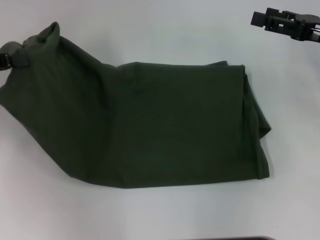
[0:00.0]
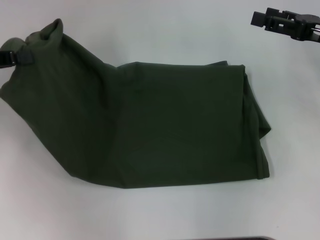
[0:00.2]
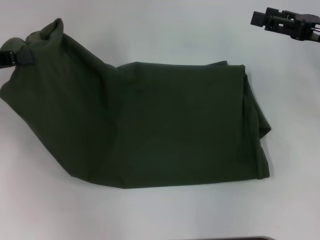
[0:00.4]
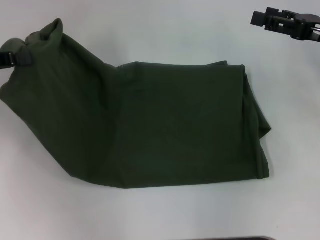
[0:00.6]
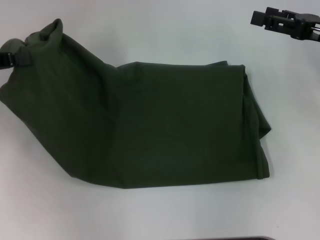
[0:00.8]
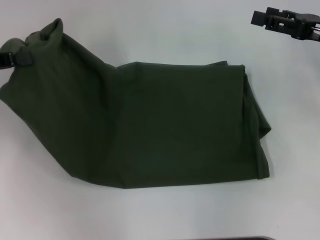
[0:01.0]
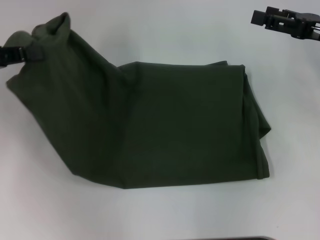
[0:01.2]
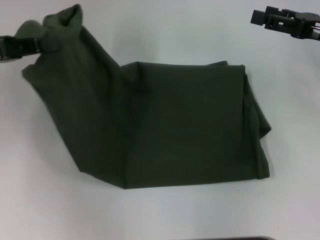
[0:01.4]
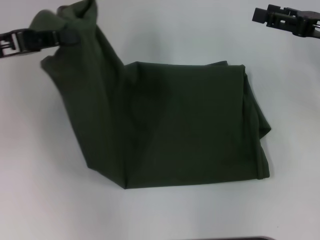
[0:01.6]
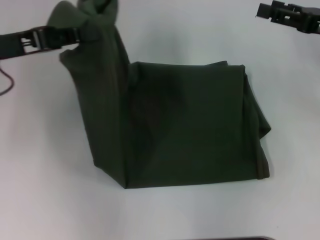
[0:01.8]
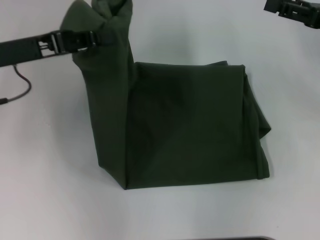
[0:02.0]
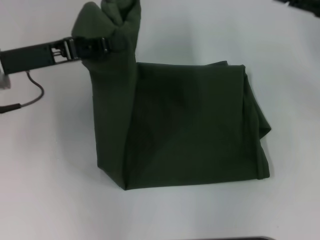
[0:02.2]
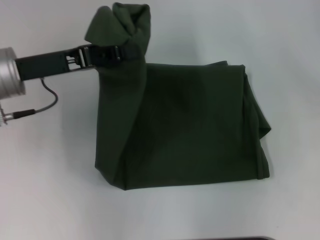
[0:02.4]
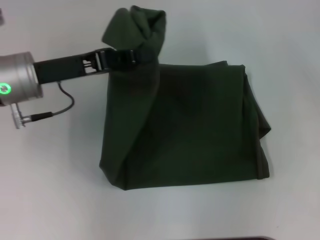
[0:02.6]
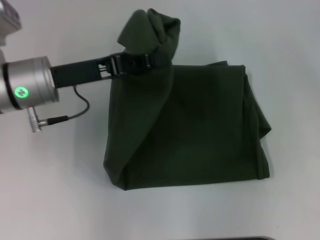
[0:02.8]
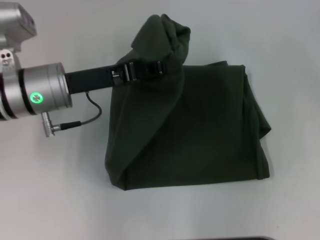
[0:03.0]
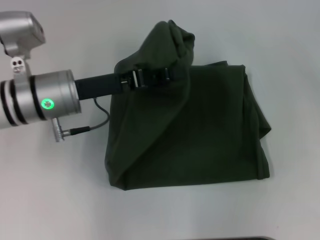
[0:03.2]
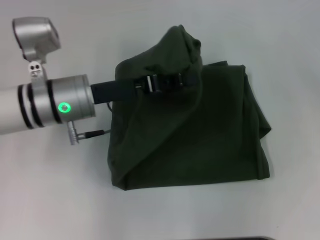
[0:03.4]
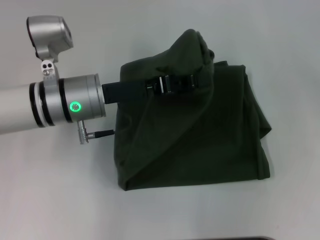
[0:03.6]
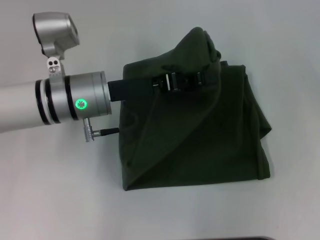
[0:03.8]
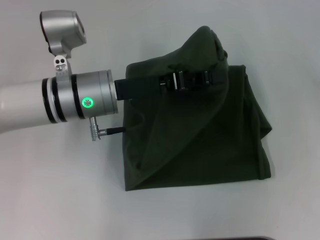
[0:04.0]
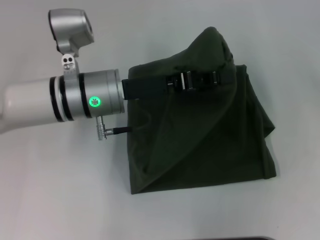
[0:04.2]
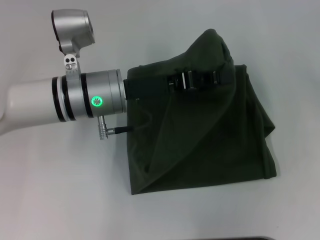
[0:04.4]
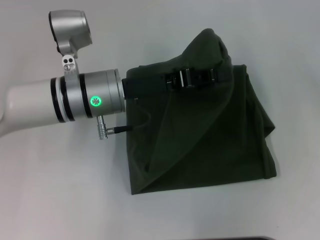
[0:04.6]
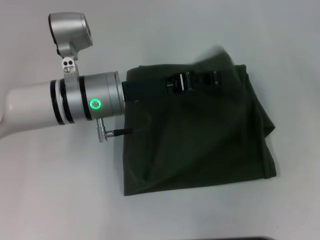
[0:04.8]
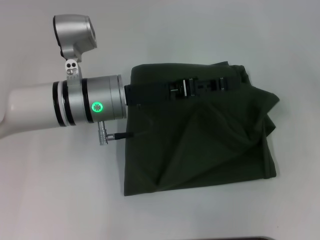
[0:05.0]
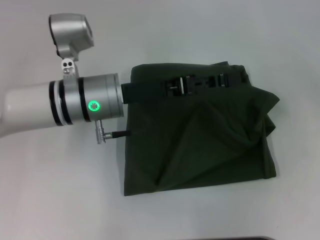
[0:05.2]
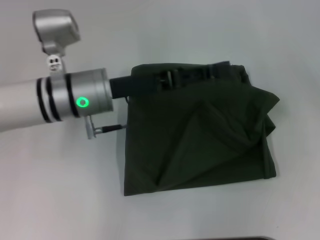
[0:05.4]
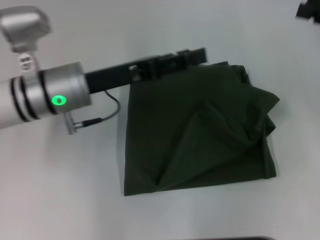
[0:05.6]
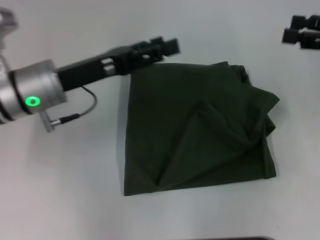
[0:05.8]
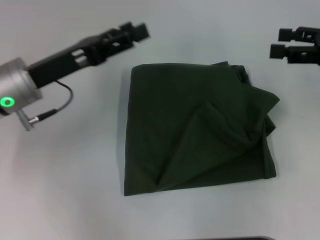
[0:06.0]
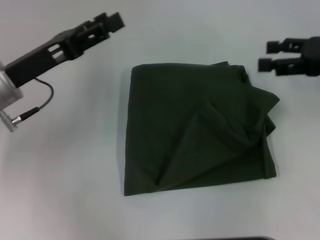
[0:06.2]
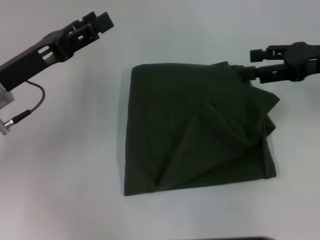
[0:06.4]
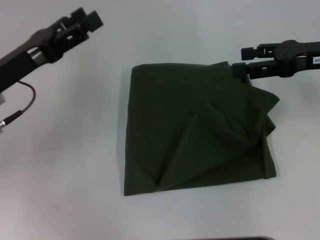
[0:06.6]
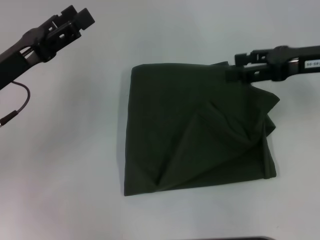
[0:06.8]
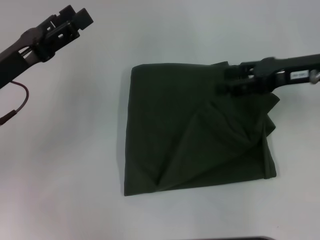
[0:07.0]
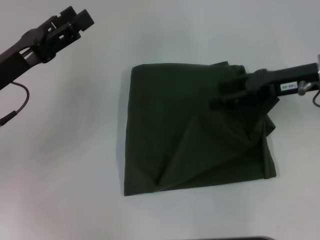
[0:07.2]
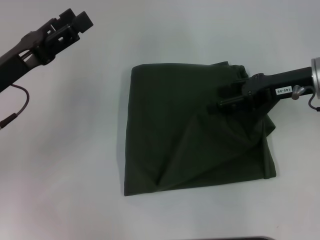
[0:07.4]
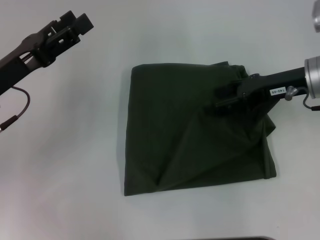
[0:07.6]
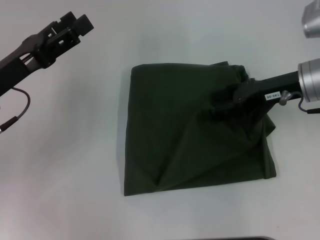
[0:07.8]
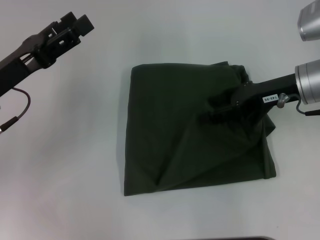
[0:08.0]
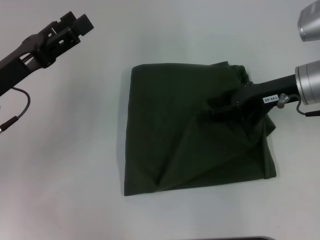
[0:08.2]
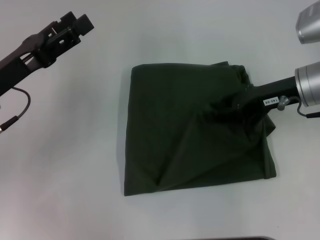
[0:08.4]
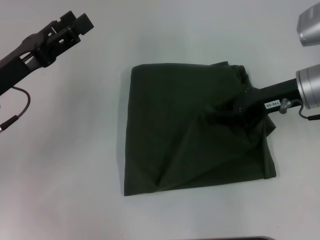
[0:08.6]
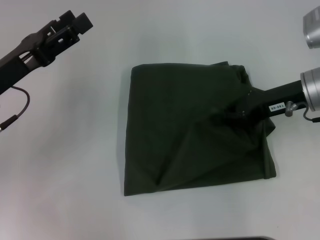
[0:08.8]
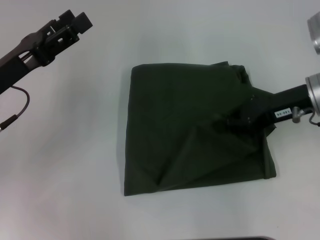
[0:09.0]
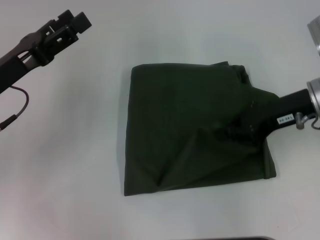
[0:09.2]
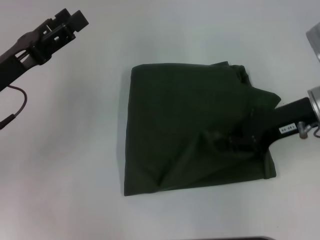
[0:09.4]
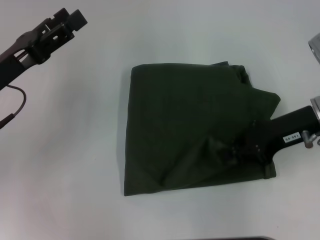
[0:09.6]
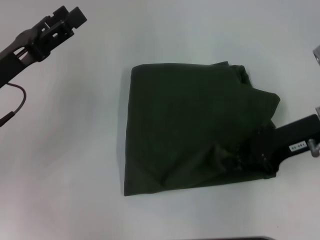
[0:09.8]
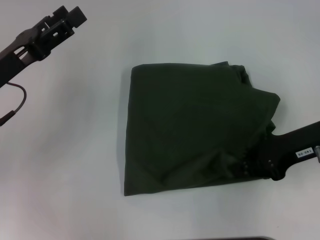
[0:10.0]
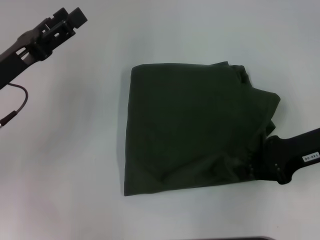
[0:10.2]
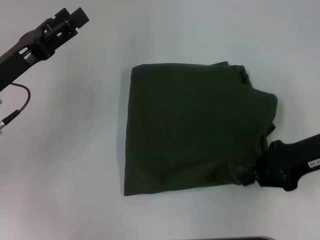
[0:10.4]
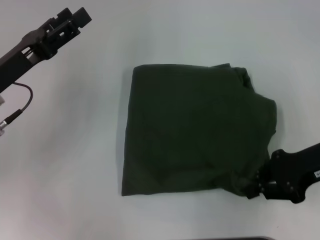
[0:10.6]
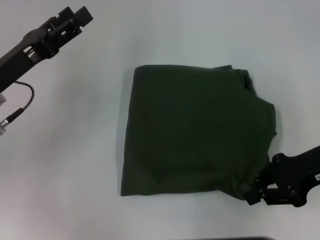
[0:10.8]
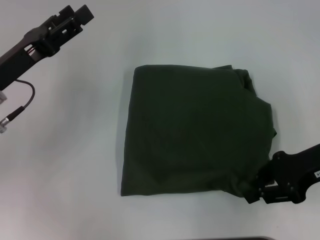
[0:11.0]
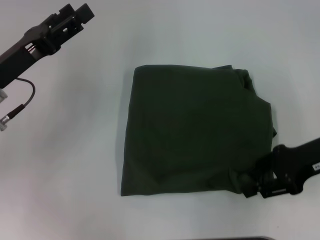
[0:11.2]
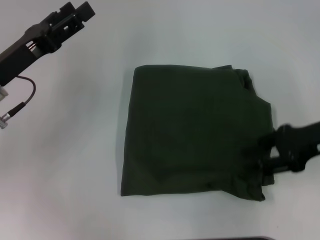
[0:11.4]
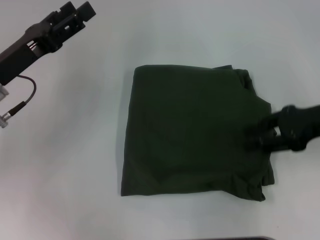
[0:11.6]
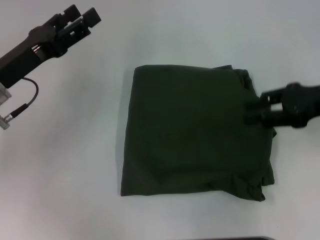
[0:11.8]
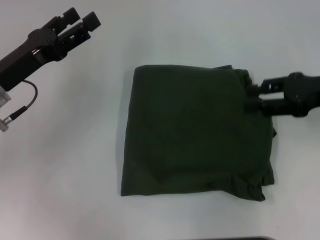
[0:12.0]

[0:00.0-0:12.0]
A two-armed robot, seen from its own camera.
Step, 0:00.0 to 0:05.4: Fold the clothes with your left hand.
0:00.0 to 0:01.6: The left gripper shifts approximately 5 cm to the right.
0:01.6 to 0:03.0: The right gripper is displaced to the right by roughly 5 cm. Meanwhile the left gripper moves to the right and downward, approximately 15 cm.
0:03.0 to 0:04.4: The left gripper goes some 5 cm to the right.
0:04.4 to 0:06.0: The left gripper heads to the left, covering approximately 10 cm, and opens.
0:06.0 to 0:07.6: The left gripper moves roughly 5 cm. Meanwhile the right gripper moves to the left, some 10 cm.
0:07.6 to 0:09.0: The right gripper closes its fingers.
0:09.0 to 0:10.4: The right gripper heads backward, covering some 5 cm.
0:10.4 to 0:12.0: The right gripper changes place by approximately 5 cm, and opens.

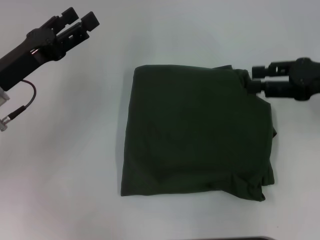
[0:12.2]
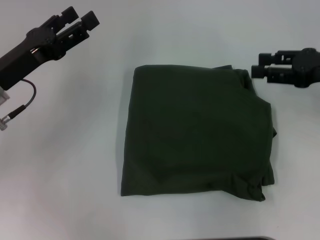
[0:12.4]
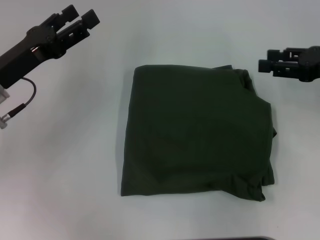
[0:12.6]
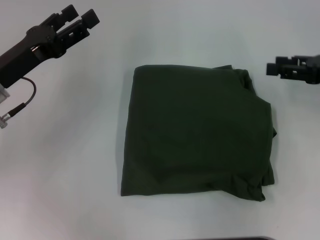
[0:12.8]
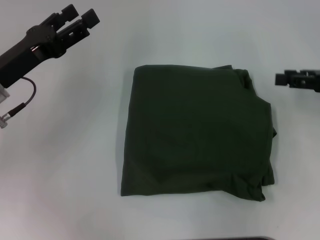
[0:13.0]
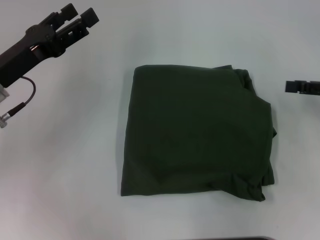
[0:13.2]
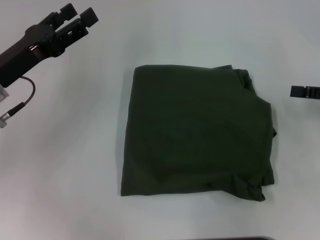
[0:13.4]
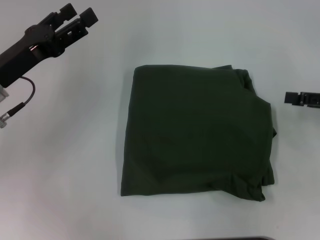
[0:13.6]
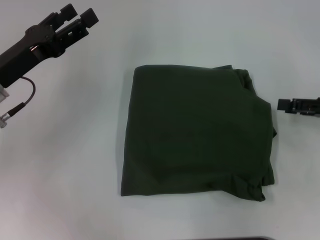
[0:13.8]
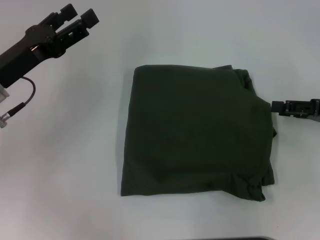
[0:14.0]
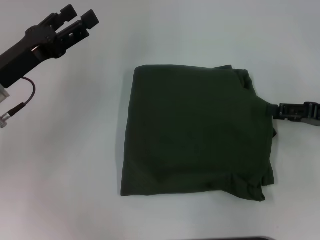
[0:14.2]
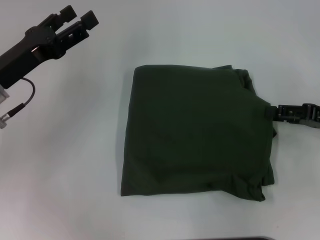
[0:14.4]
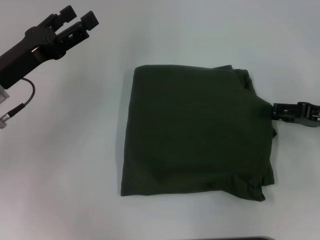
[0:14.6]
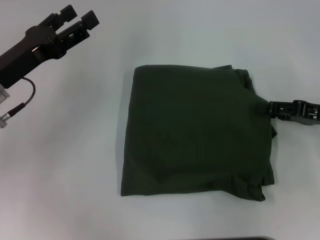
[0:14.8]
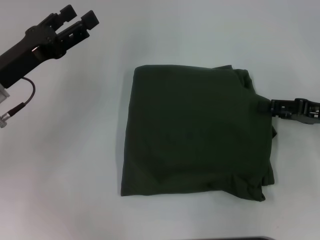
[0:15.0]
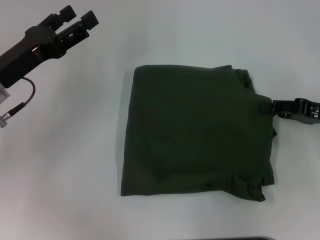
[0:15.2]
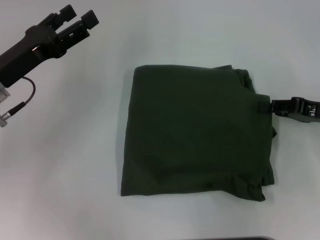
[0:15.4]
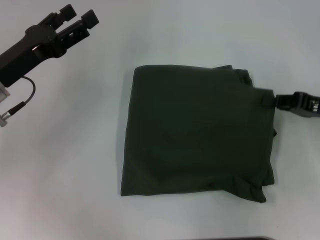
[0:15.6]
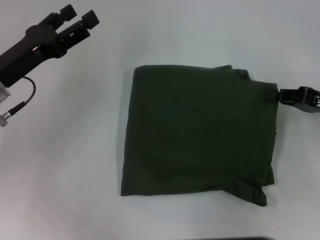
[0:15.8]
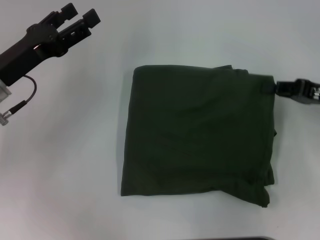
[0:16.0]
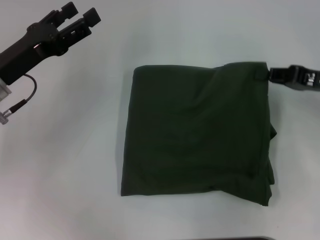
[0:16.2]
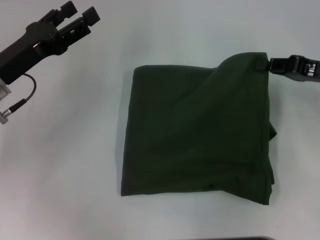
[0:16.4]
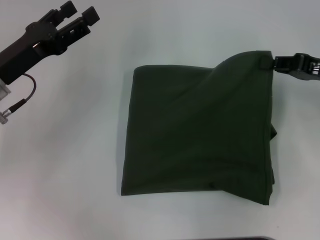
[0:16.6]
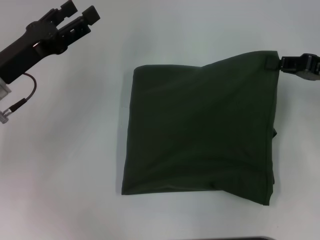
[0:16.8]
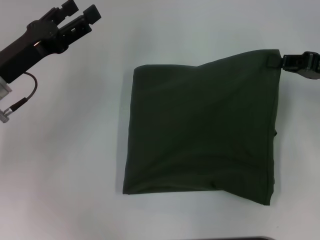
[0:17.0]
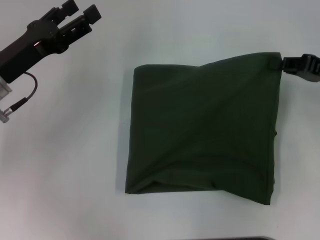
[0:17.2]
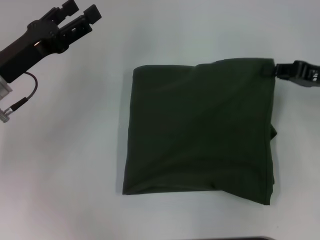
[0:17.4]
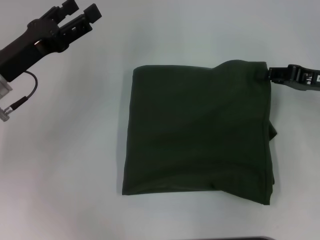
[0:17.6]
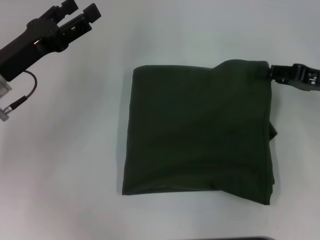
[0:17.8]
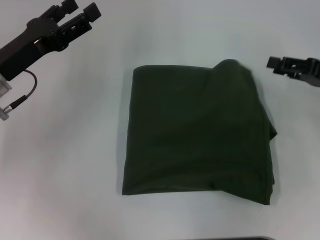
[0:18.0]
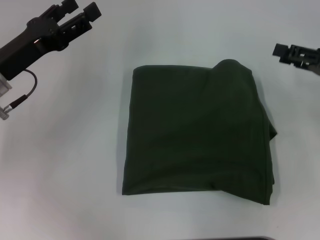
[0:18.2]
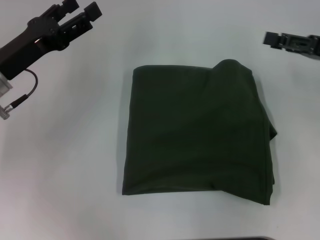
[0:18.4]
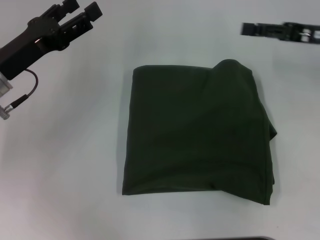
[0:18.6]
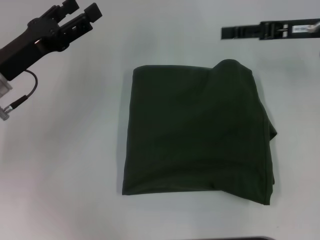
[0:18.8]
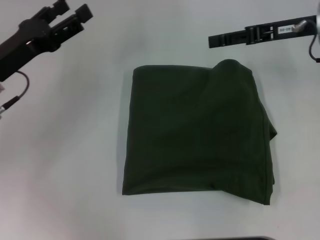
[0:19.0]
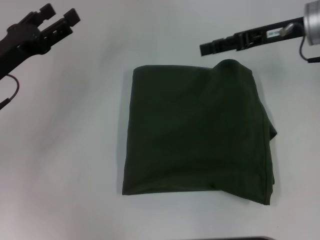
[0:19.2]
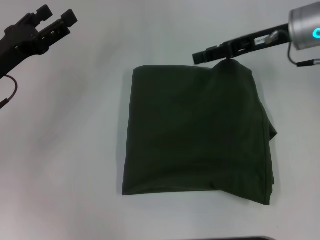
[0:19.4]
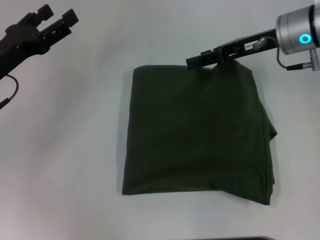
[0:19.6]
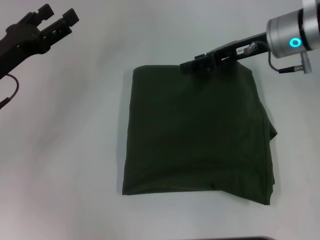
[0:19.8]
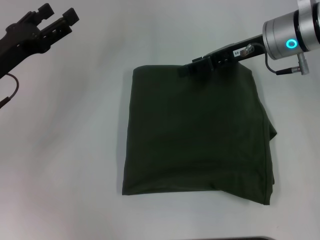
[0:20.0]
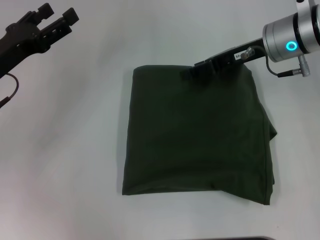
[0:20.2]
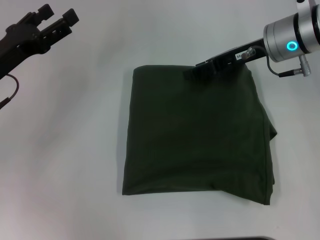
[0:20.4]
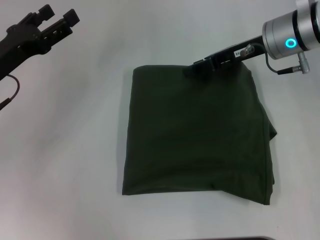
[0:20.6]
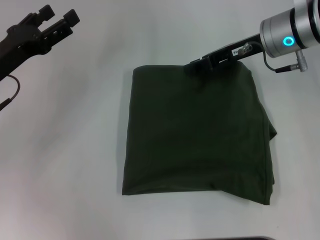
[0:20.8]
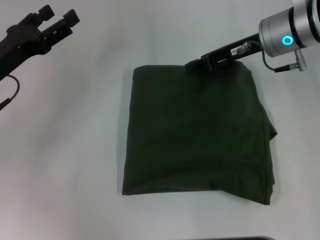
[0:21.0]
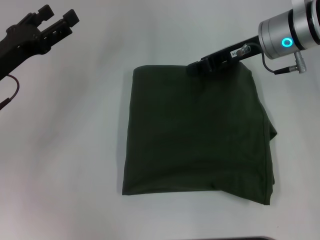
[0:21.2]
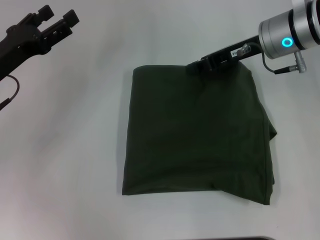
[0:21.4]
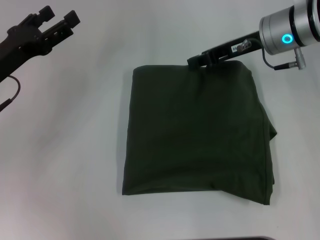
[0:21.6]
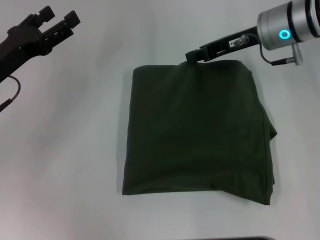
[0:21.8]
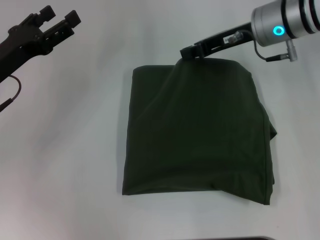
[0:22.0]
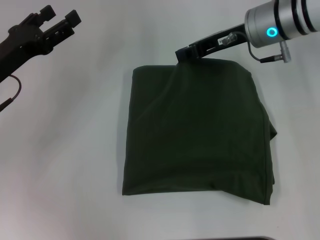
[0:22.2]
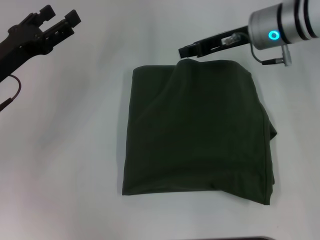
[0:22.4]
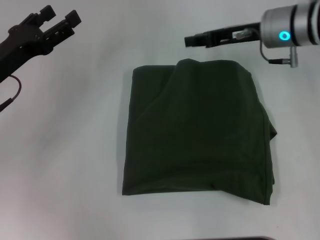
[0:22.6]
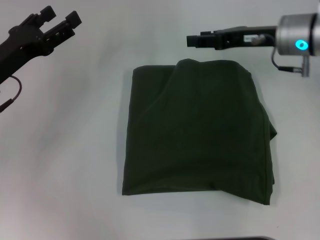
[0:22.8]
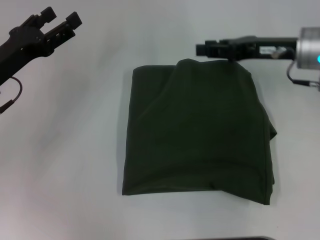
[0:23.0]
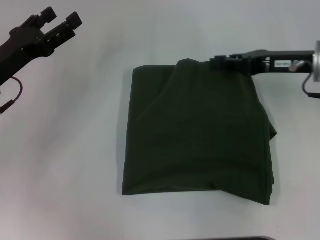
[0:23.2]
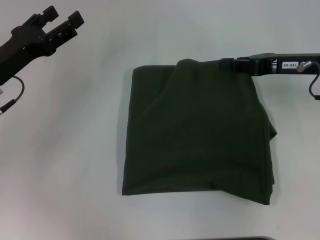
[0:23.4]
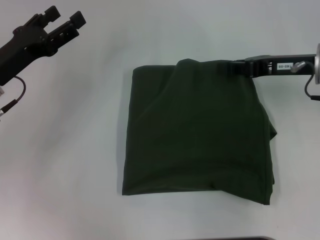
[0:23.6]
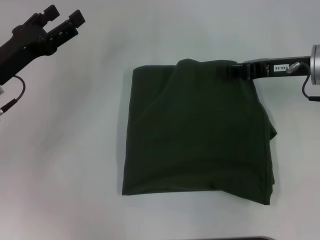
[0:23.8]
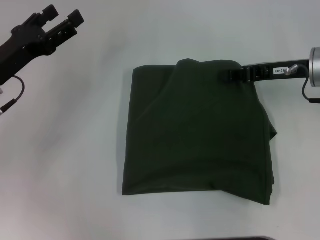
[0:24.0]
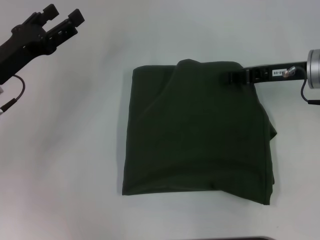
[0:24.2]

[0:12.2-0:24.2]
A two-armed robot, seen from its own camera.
0:12.2 to 0:13.8: The right gripper shifts some 5 cm downward.
0:13.8 to 0:15.2: The grippers stay close to where they were, moving slightly.
0:15.2 to 0:16.6: The right gripper ends up approximately 5 cm from where it was, and closes up.
0:16.6 to 0:18.2: The right gripper opens its fingers.
0:18.2 to 0:19.8: The right gripper goes some 15 cm to the left and forward.
0:19.8 to 0:21.2: The right gripper closes up.
0:21.2 to 0:22.6: The grippers move only a little.
0:22.6 to 0:24.2: The right gripper goes approximately 10 cm to the right and backward, and opens, then closes once more.
